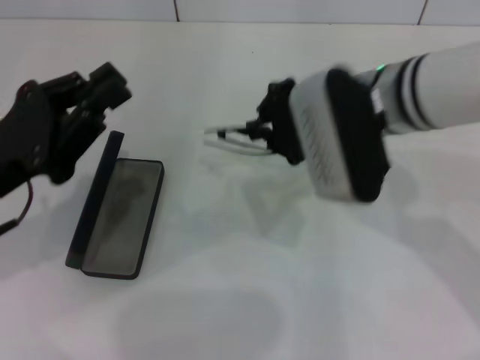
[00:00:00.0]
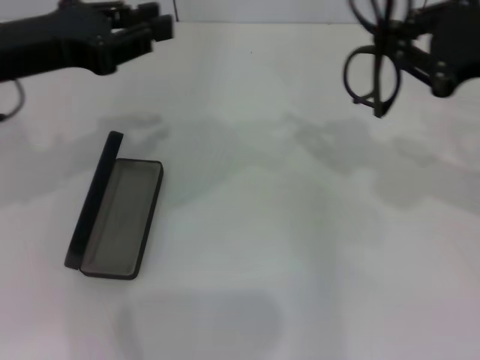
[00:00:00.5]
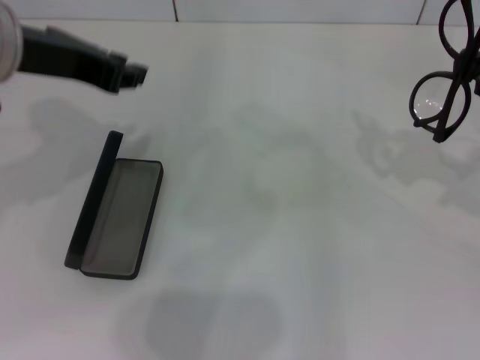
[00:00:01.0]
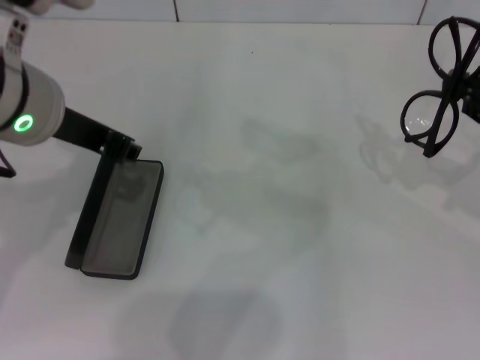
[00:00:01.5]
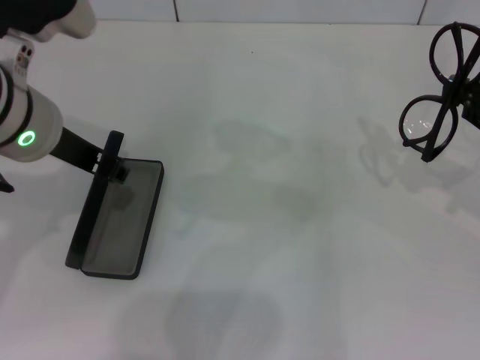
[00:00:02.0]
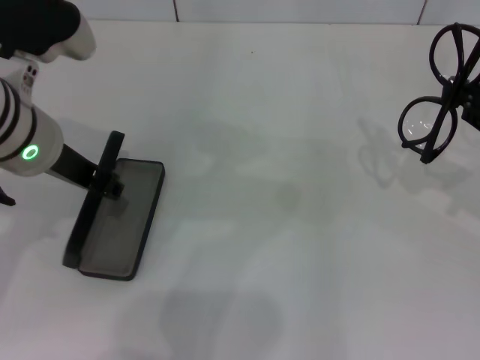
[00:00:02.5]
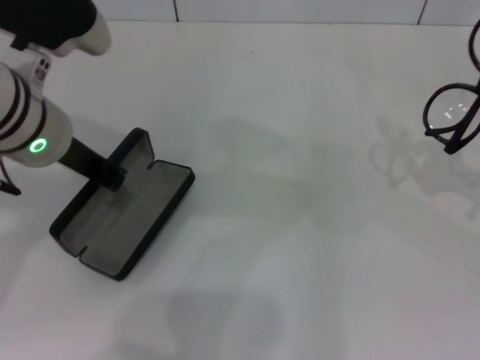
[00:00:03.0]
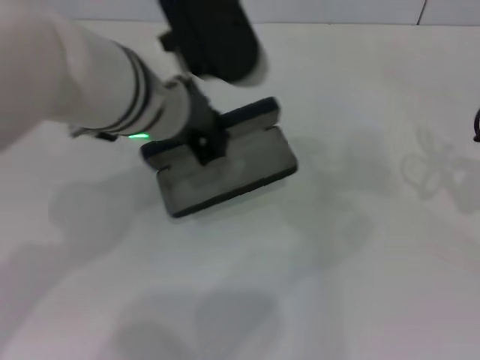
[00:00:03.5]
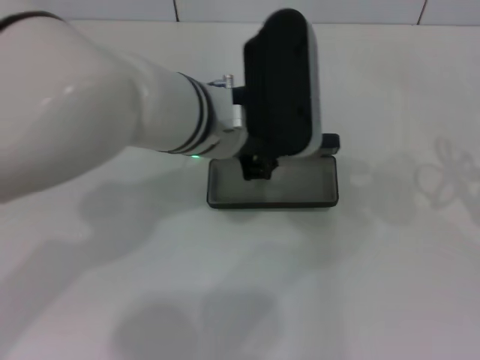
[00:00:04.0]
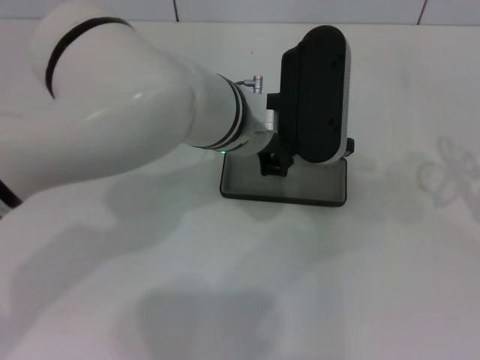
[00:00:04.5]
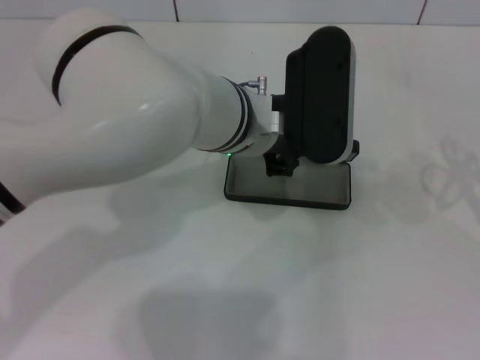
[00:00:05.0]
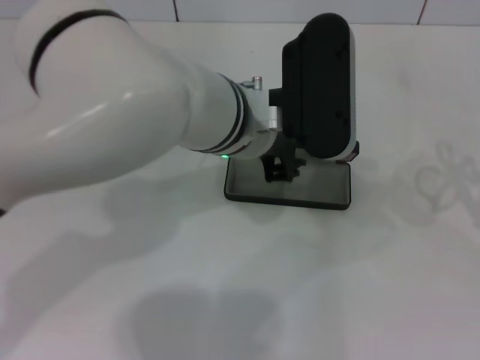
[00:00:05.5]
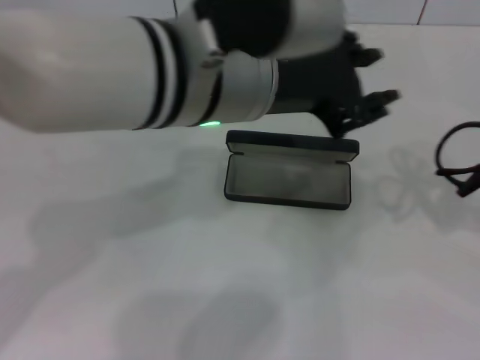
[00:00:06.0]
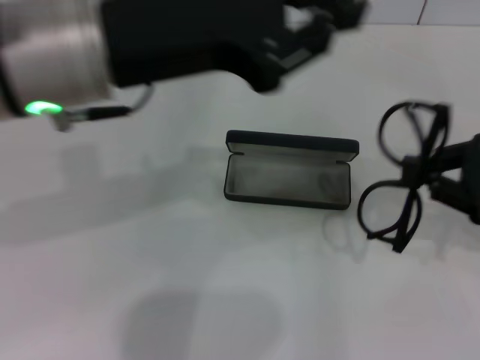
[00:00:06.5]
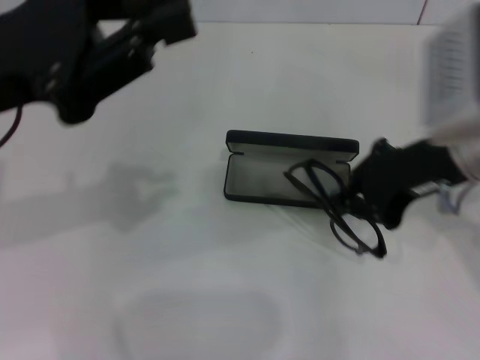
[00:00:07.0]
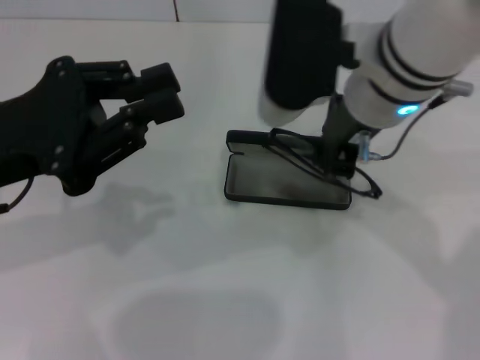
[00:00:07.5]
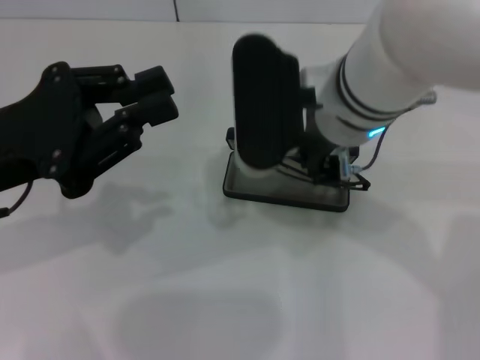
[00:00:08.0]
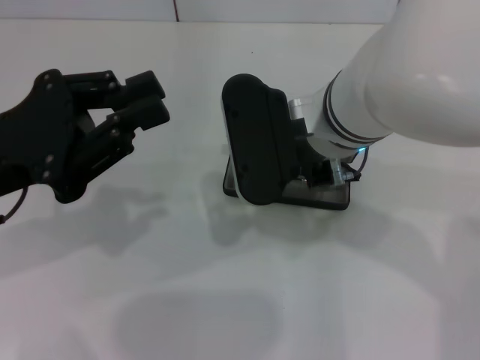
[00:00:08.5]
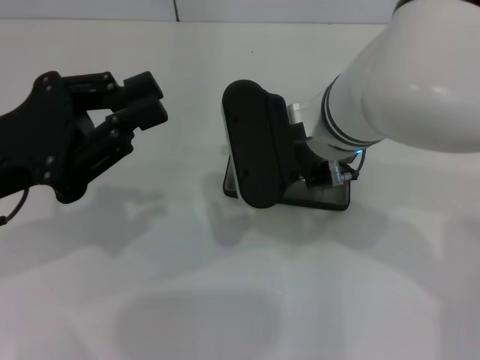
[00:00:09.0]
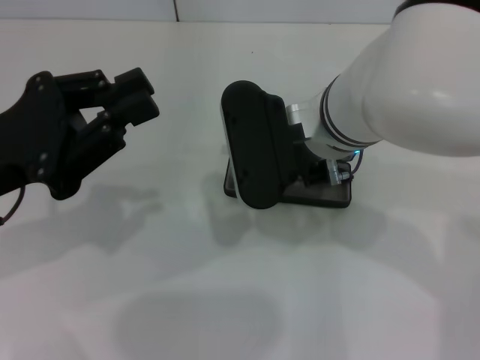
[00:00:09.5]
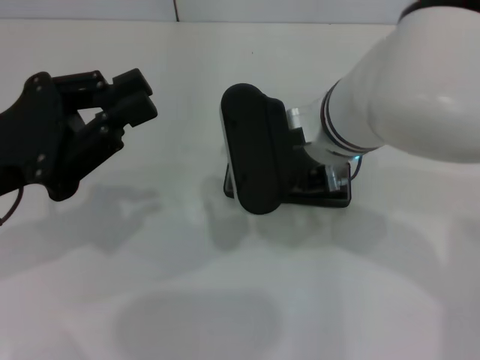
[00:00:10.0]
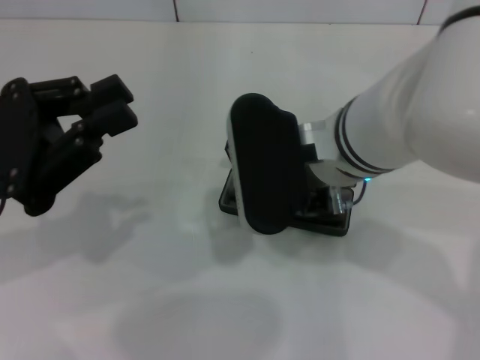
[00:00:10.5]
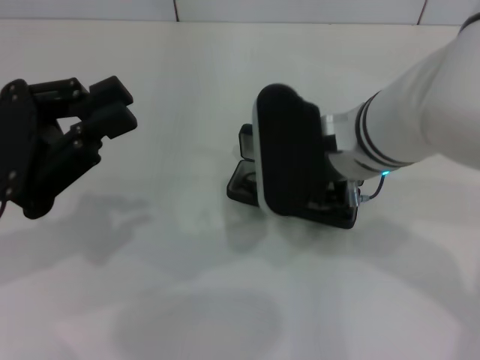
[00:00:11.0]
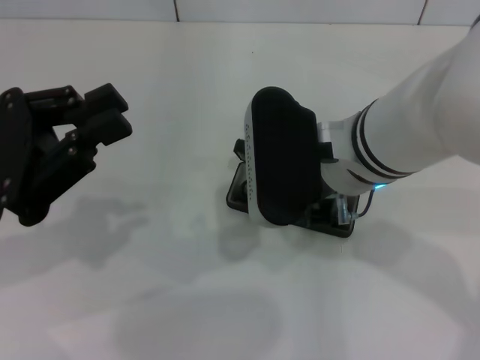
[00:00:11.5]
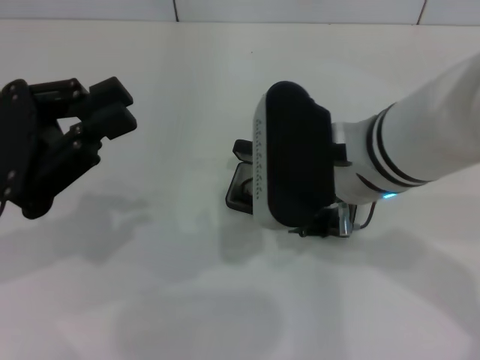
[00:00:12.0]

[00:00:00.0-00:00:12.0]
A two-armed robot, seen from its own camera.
Step, 00:00:00.0 to 00:00:03.0: Grab the glasses case with your left hand.
Step, 00:00:03.5 to 00:00:04.5: Place the glasses case in the center of the table with your left hand.
Step, 00:00:05.0 to 00:00:11.0: Put the glasses into the case with your right hand.
00:00:00.0 to 00:00:02.0: The left gripper heads to the right, upward and forward, covering roughly 15 cm, and opens up. The right gripper travels to the right by about 25 cm.
00:00:02.0 to 00:00:04.0: The left gripper heads to the right, covering approximately 15 cm, and closes; the right gripper moves backward and to the right, some 10 cm.
00:00:04.0 to 00:00:06.0: The left gripper is displaced upward by about 10 cm.
00:00:06.0 to 00:00:08.0: The left gripper moves to the left, some 20 cm, and closes its fingers. The right gripper goes roughly 30 cm to the left.
00:00:08.0 to 00:00:10.0: The right gripper opens up.
00:00:10.0 to 00:00:12.0: The grippers stay close to where they were, moving slightly.

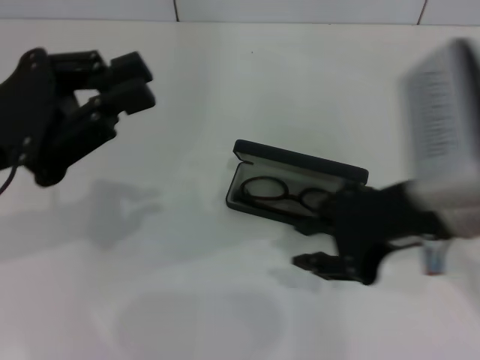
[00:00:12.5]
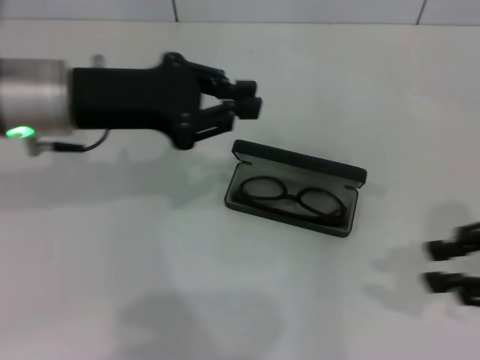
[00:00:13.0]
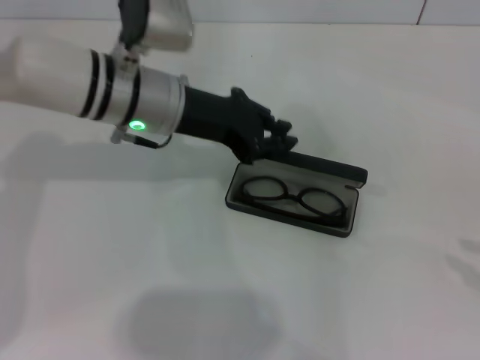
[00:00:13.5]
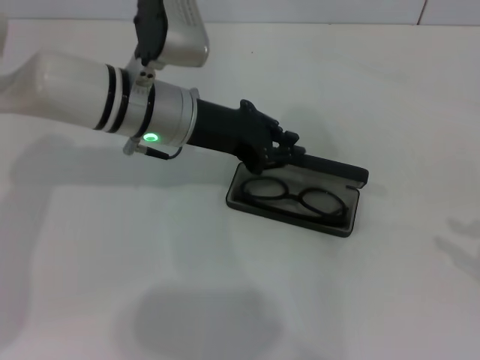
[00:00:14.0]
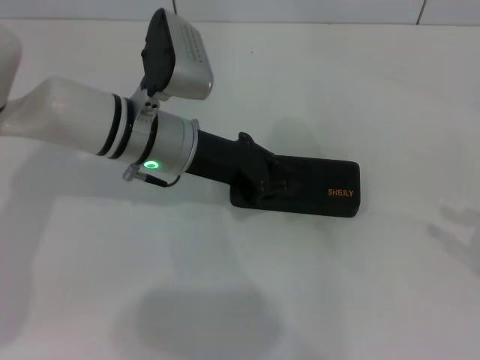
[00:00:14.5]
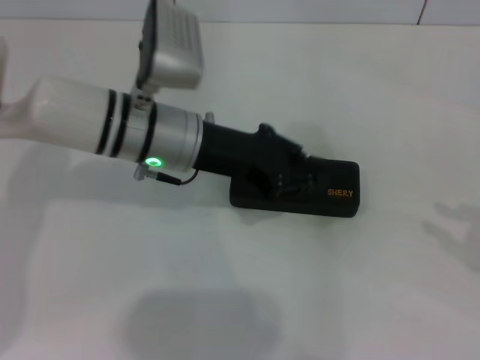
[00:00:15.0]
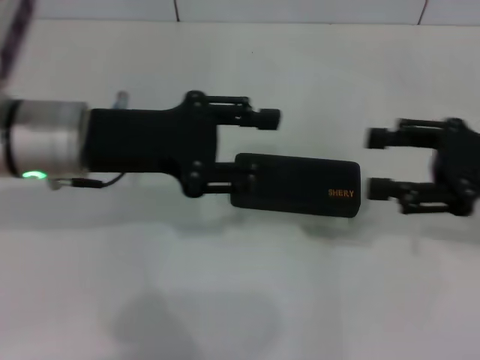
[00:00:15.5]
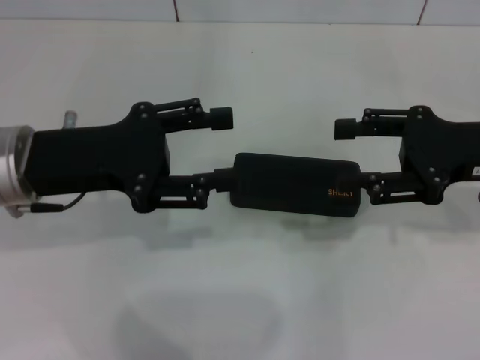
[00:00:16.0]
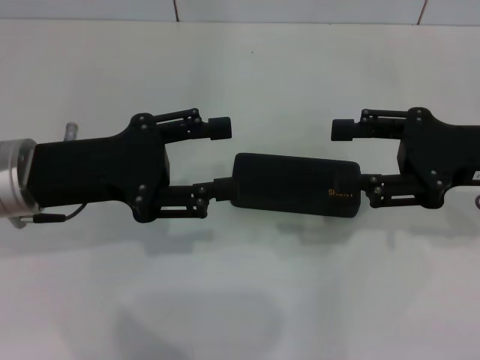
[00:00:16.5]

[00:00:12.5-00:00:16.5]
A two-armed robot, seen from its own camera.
Step, 00:00:12.5 to 00:00:14.0: Close the glasses case with your left hand.
00:00:12.5 to 00:00:14.5: The right gripper moves to the right, about 25 cm. Meanwhile the left gripper is displaced to the right, forward and downward by approximately 20 cm.
00:00:14.5 to 00:00:16.5: The right gripper shifts roughly 20 cm to the left and forward; the left gripper heads to the left and backward, covering about 15 cm, and opens.
